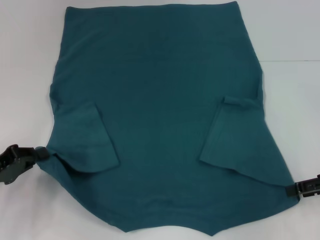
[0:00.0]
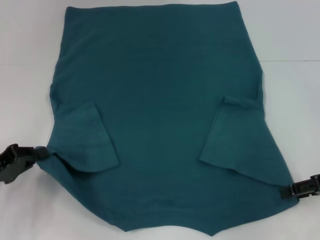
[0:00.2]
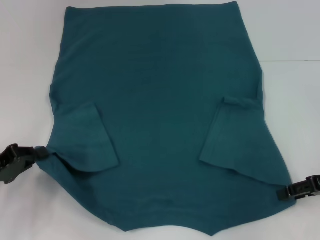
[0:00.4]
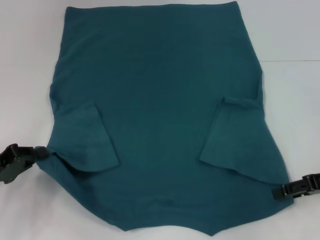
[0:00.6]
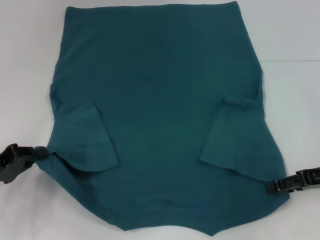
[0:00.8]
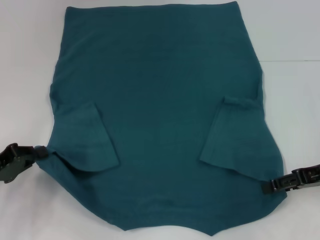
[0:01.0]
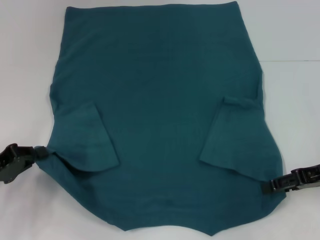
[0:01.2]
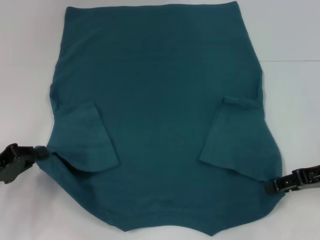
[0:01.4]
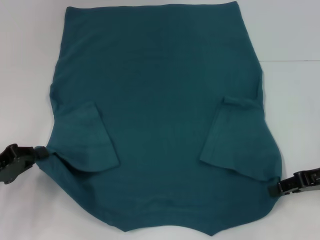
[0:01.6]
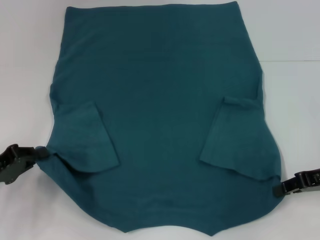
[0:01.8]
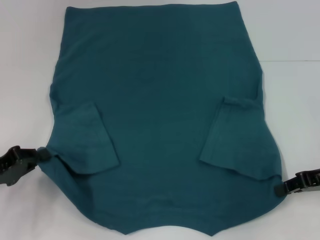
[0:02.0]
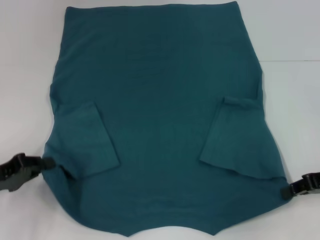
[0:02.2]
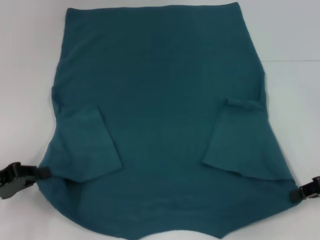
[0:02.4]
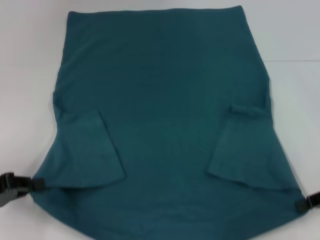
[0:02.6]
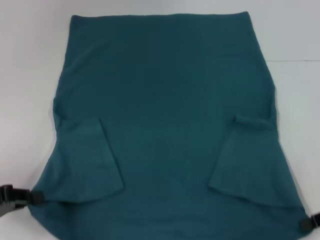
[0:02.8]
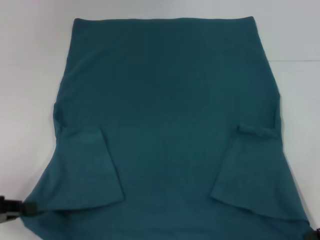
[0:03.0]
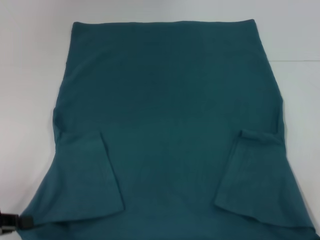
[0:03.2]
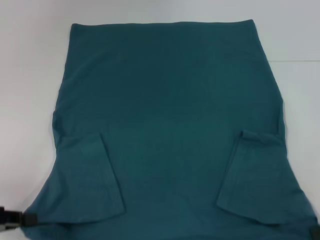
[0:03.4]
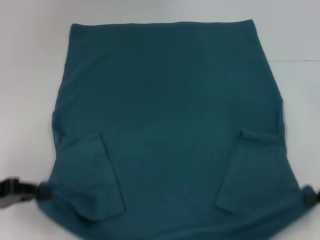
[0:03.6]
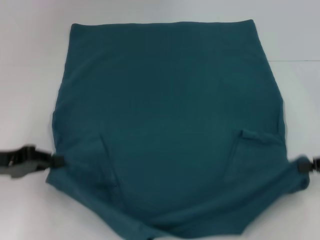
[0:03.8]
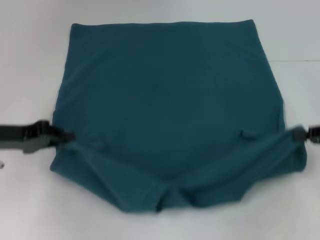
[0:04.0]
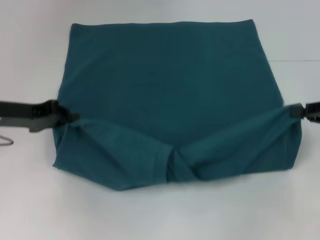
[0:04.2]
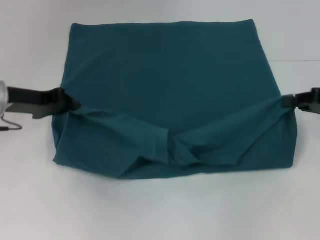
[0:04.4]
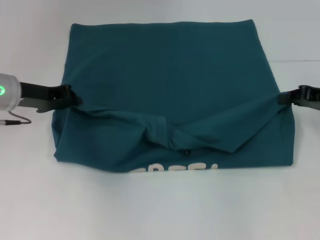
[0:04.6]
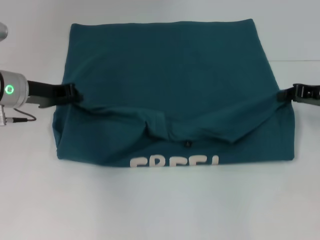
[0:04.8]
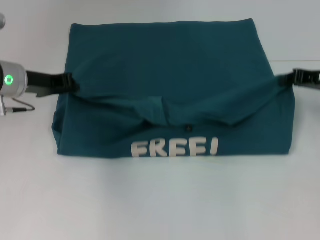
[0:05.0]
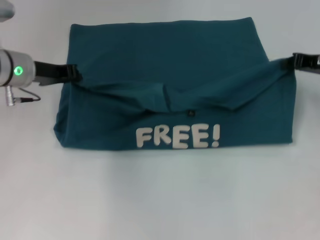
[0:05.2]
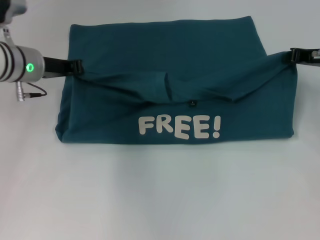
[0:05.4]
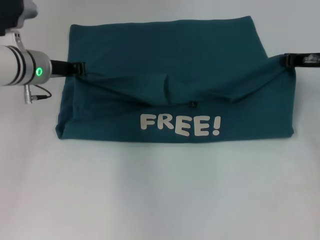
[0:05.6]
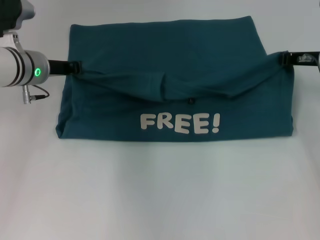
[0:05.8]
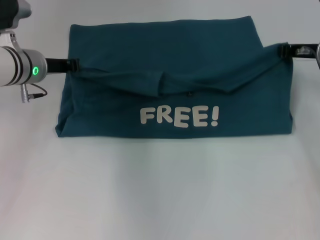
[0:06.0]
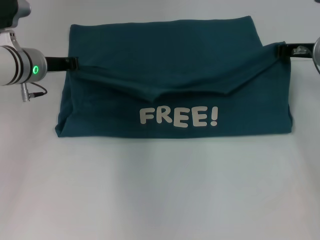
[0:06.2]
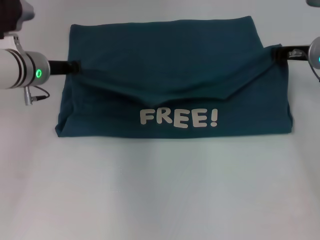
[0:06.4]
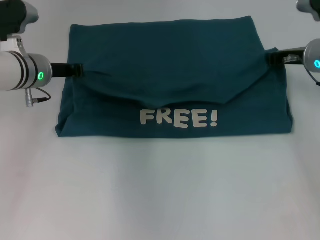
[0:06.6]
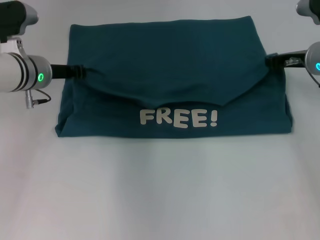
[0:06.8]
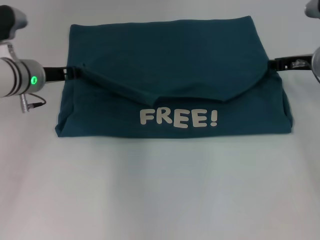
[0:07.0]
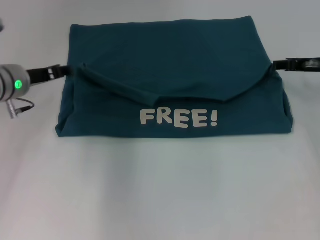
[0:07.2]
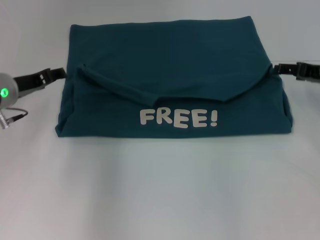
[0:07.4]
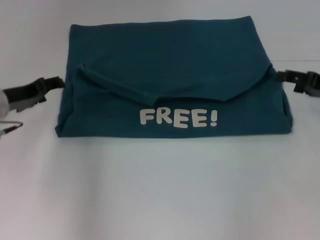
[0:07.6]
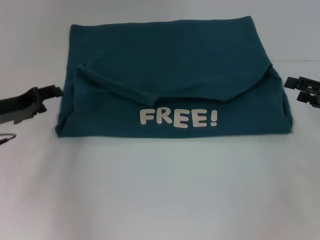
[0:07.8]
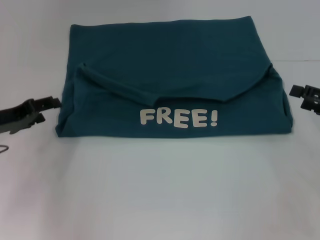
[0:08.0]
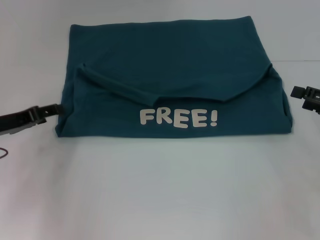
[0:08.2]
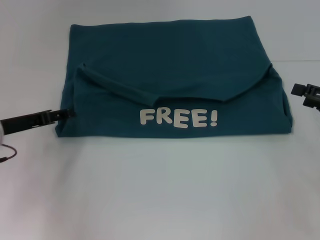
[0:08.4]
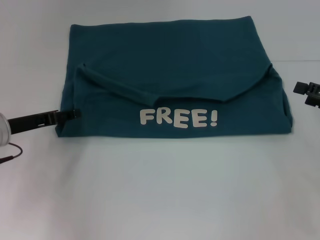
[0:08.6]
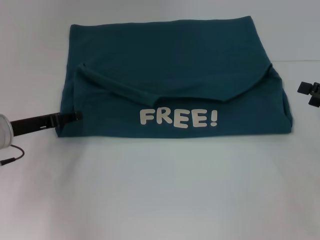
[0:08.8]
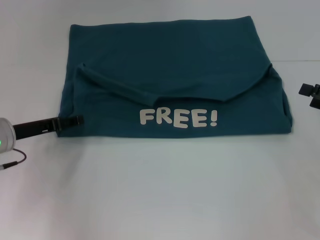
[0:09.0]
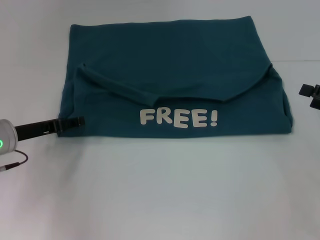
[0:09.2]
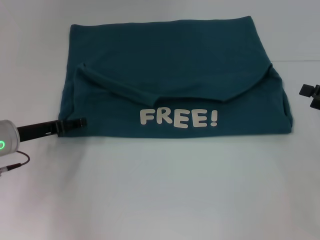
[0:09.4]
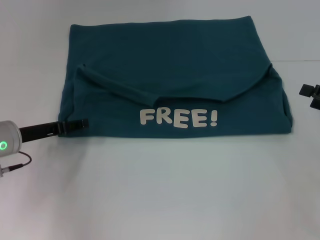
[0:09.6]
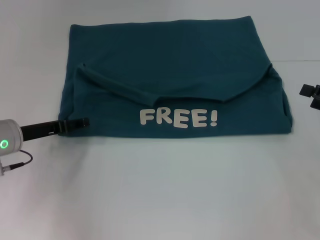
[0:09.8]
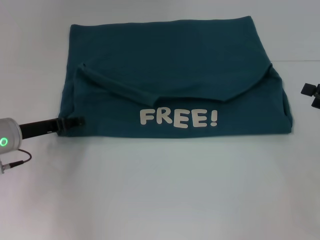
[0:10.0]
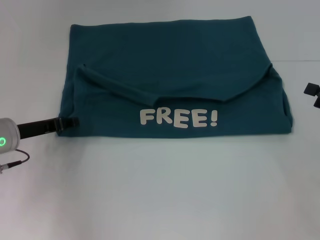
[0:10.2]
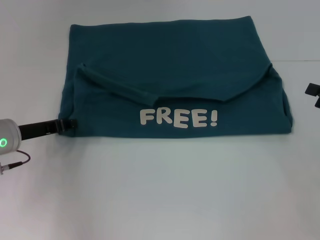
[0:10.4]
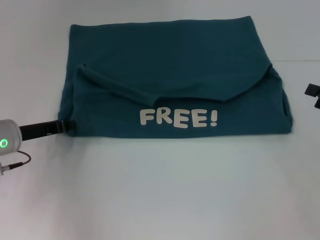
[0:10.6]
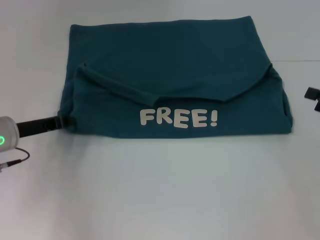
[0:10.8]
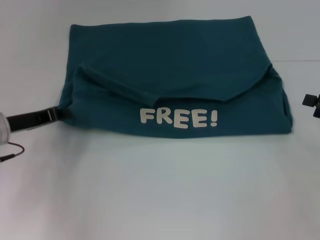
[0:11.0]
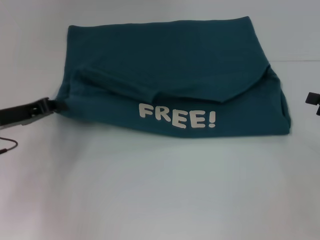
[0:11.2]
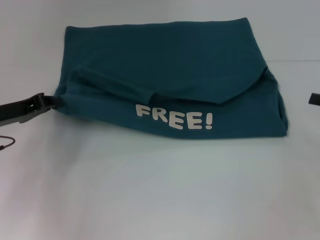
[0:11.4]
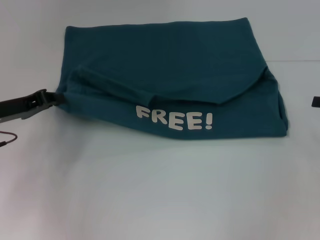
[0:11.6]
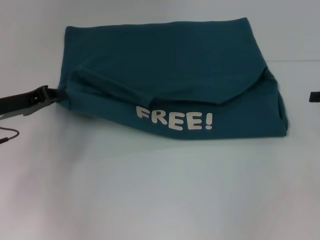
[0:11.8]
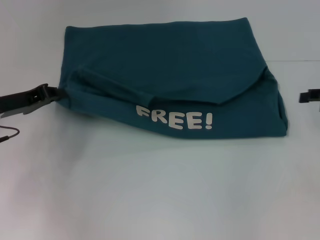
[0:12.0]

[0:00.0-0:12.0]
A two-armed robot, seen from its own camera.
Step, 0:02.0 to 0:07.2: Fold the clothes to the left.
Step, 0:02.0 to 0:07.2: Fold the clothes to the right.
0:00.0 to 0:01.6: The grippers stay close to where they were, moving slightly.
0:01.6 to 0:03.0: The right gripper shifts roughly 5 cm backward, and closes up. Meanwhile the left gripper changes place by approximately 5 cm.
0:03.0 to 0:04.4: The left gripper travels forward and to the right by roughly 20 cm, while the right gripper goes roughly 10 cm forward.
0:04.4 to 0:06.0: The right gripper travels forward and to the left by some 10 cm, while the left gripper heads forward and to the right, covering approximately 10 cm.
0:06.0 to 0:07.6: The left gripper moves backward and to the left, some 10 cm, and opens up; the right gripper goes roughly 10 cm backward and to the right, and opens.
0:07.6 to 0:09.0: The right gripper shifts about 5 cm backward.
0:09.0 to 0:10.4: Both grippers stay about where they are.
0:10.4 to 0:12.0: The left gripper closes up, while the right gripper heads forward, covering roughly 5 cm.

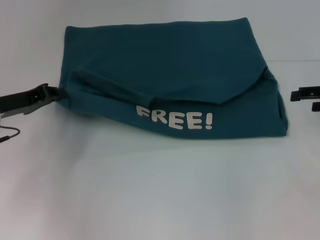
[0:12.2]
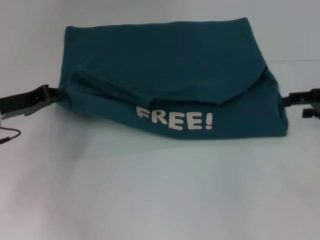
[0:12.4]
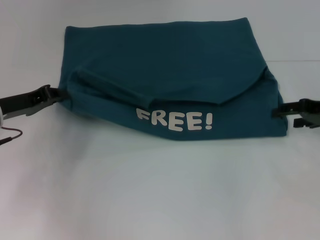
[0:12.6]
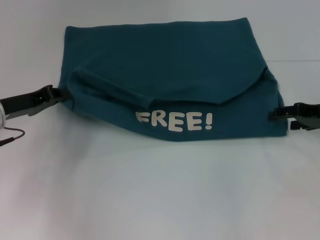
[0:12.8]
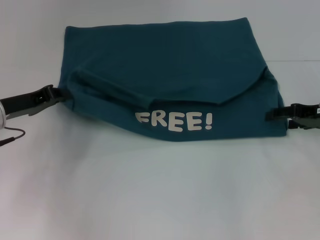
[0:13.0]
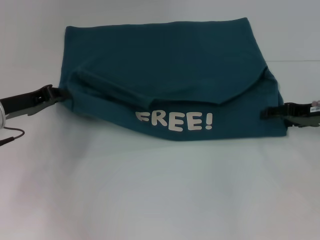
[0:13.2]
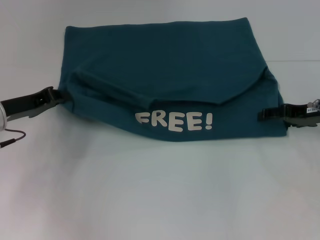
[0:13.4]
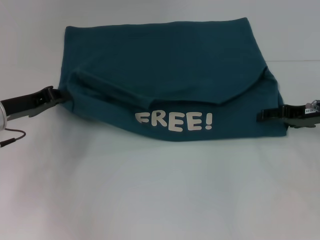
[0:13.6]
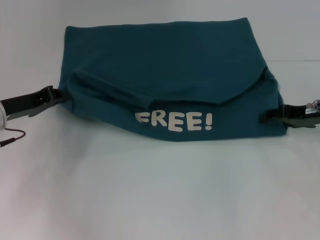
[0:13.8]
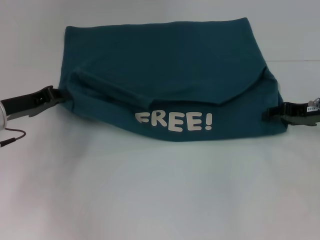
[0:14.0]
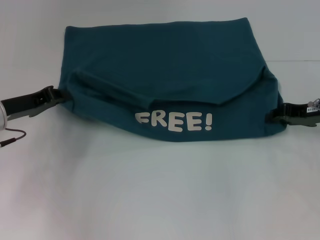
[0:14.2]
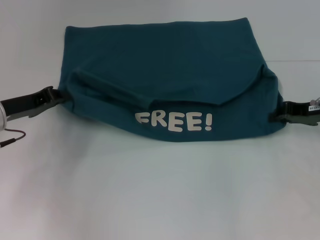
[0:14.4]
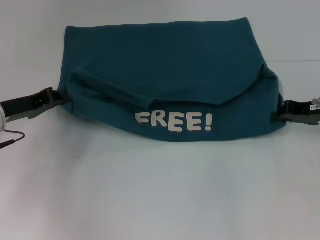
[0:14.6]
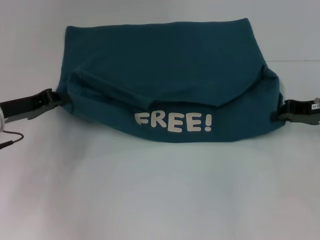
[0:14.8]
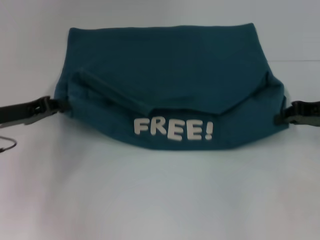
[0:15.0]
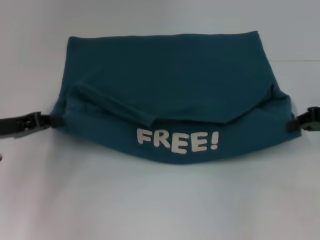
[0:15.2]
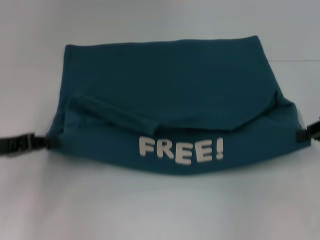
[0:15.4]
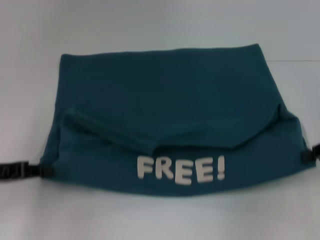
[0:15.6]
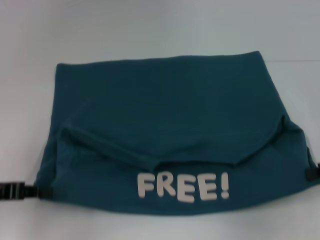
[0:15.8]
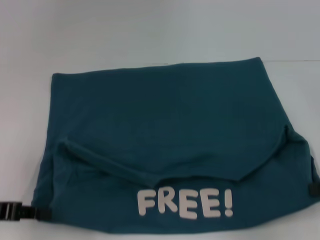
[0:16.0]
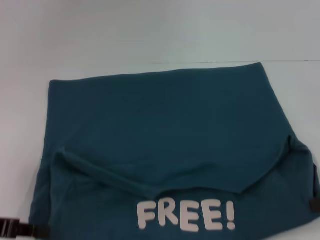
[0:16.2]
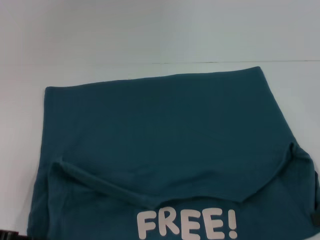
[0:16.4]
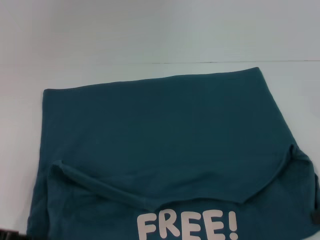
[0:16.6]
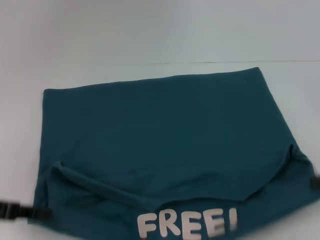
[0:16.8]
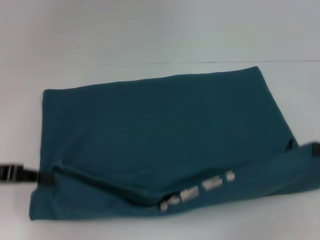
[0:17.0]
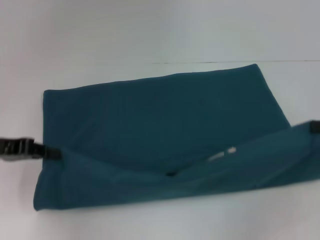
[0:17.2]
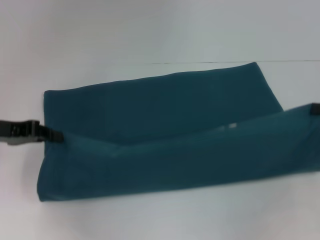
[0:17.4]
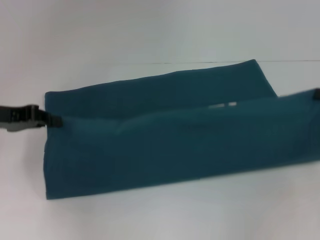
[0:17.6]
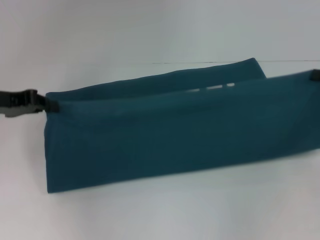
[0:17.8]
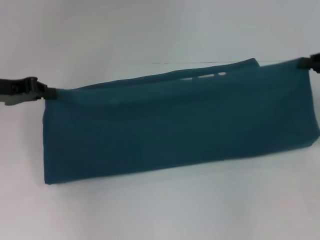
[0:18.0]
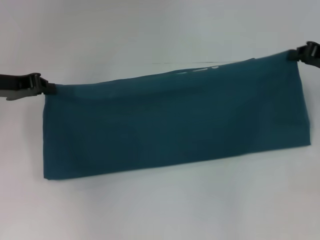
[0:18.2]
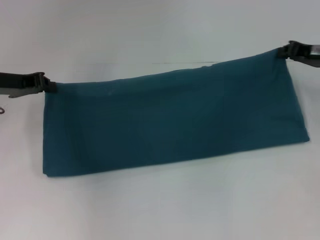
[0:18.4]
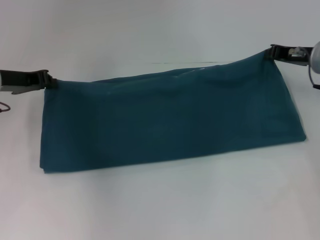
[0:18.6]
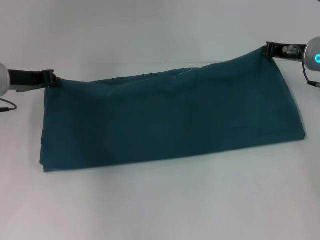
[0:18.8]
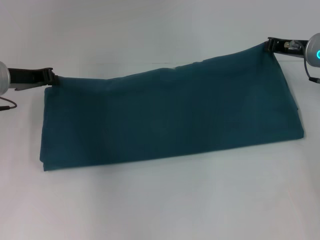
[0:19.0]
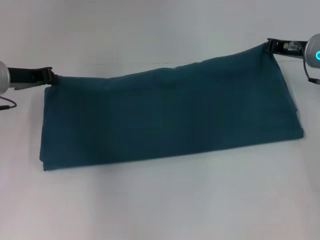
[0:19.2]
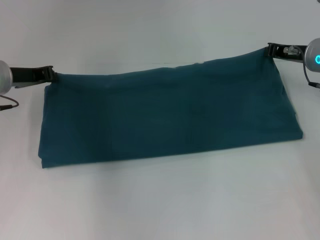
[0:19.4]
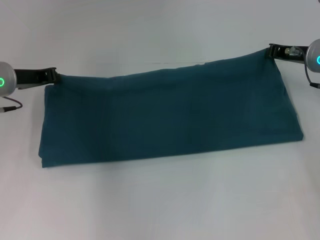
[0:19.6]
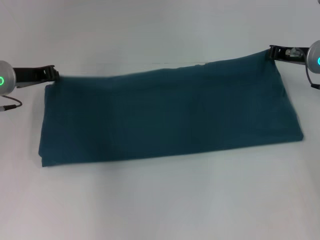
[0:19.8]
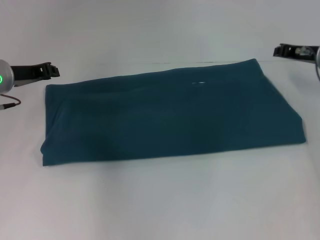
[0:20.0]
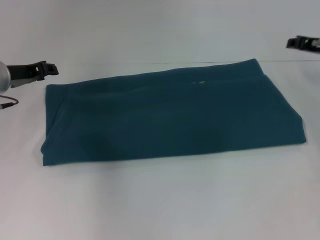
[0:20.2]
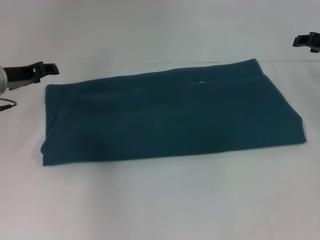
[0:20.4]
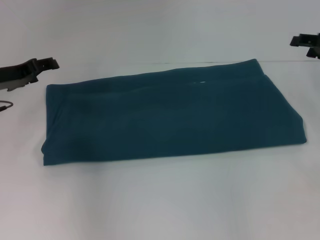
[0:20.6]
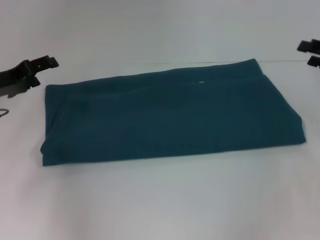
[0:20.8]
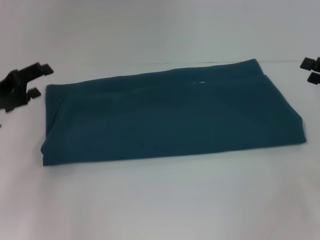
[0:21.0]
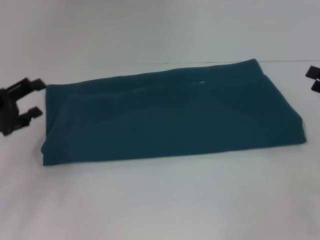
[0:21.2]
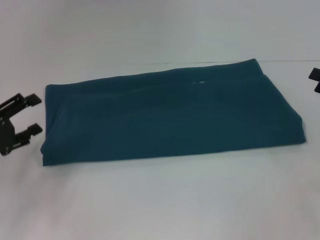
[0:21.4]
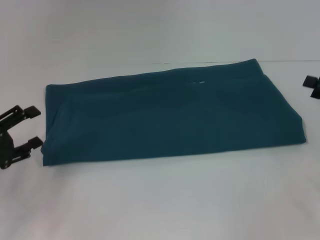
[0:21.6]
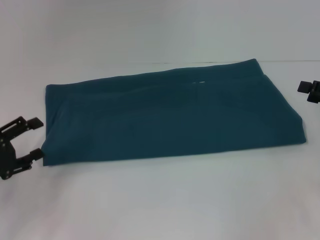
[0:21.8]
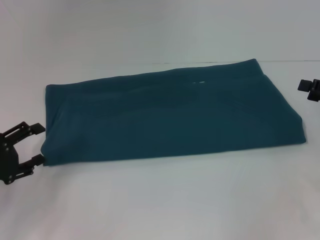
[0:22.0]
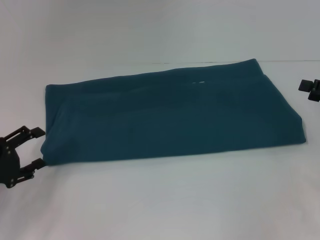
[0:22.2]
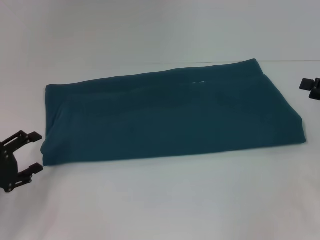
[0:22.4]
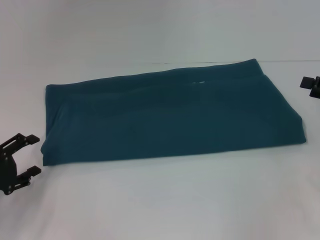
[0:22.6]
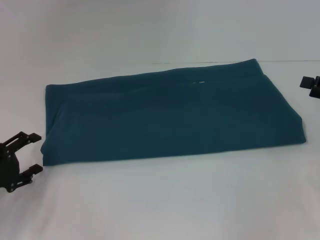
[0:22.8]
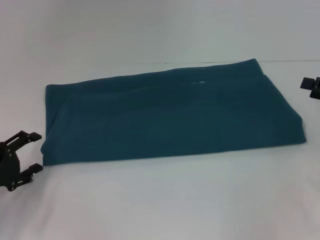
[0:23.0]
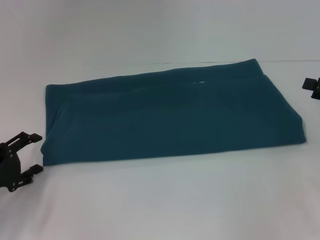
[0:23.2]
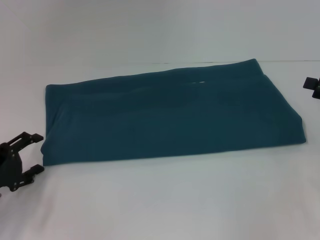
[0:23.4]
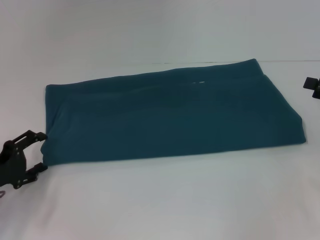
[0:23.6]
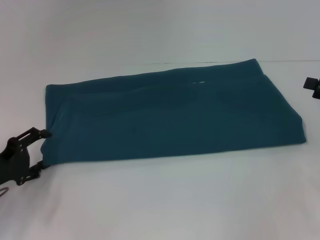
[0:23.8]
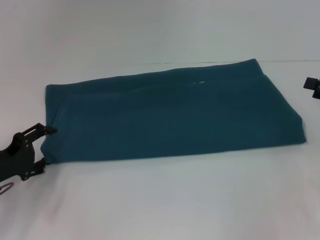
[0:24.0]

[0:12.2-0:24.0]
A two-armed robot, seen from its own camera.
Step, 0:12.2 to 0:16.2: Pull the clothes with your left hand.
Step, 0:12.2 to 0:16.2: Pull the clothes with your right hand.
Step, 0:16.4 to 0:20.0: Fold the clothes to the right.
0:12.2 to 0:13.6: The right gripper shifts approximately 5 cm to the left.
0:13.6 to 0:15.2: The right gripper ends up approximately 5 cm from where it was, and closes its fingers.
0:15.2 to 0:16.6: Both grippers move backward, about 10 cm.
0:16.6 to 0:18.2: The two grippers go roughly 15 cm forward.
0:18.2 to 0:19.6: The right gripper is displaced to the left by approximately 5 cm, while the left gripper changes place by roughly 5 cm.
0:19.6 to 0:21.0: The left gripper goes roughly 10 cm backward, and opens. The right gripper heads backward and to the right, covering roughly 15 cm, and opens up.
0:21.0 to 0:22.6: The left gripper is displaced backward and downward by approximately 10 cm.
0:22.6 to 0:24.0: The grippers stay close to where they were, moving slightly.
